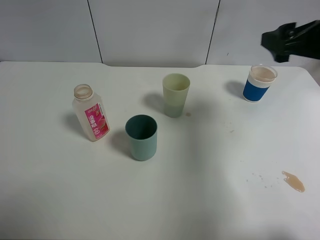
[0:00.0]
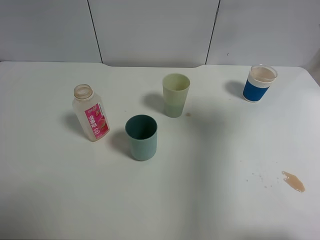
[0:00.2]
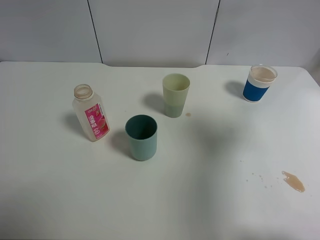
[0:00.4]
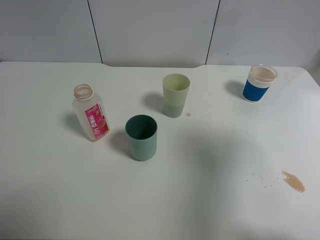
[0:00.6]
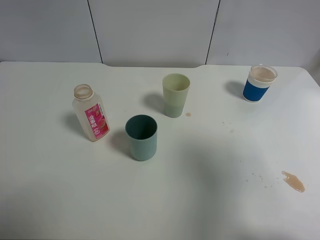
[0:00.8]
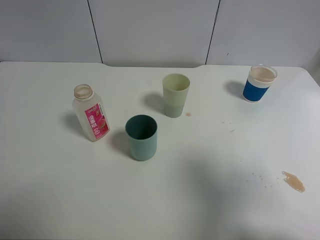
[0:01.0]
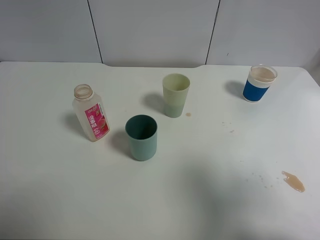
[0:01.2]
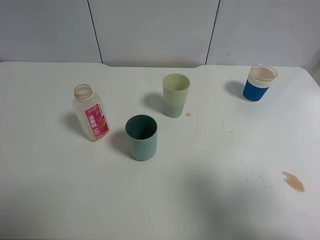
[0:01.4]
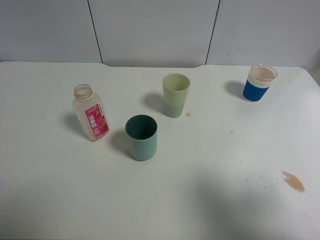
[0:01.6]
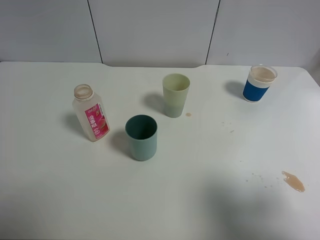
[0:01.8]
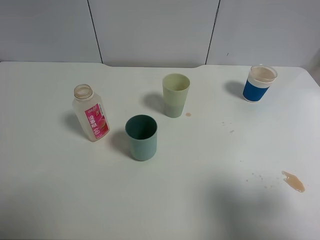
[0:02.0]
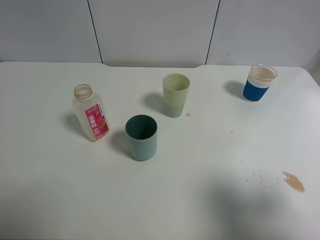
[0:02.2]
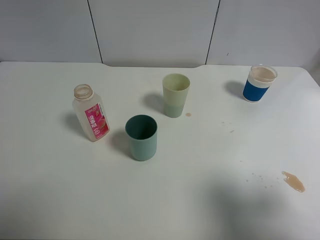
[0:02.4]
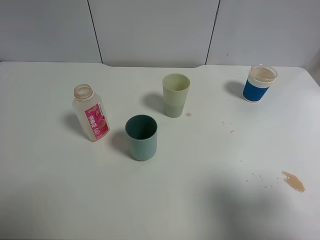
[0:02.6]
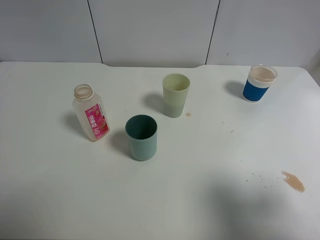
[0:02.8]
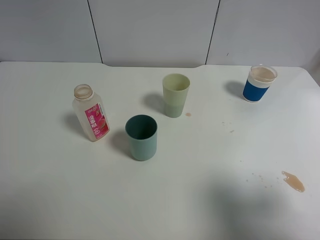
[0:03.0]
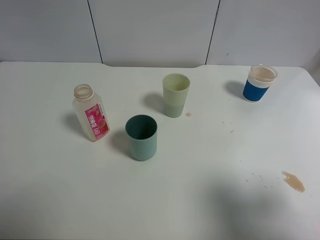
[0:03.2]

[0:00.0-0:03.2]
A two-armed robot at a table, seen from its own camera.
Task of the whole recording: use a clamp to hold the bottle of the drink, pour the beverage into a random cup, then clamp the cup containing the drink and pour the drink into another random cup.
0:00.0 to 0:01.6: The right gripper is displaced backward by approximately 25 cm.

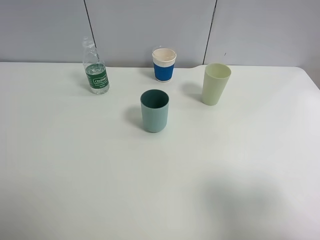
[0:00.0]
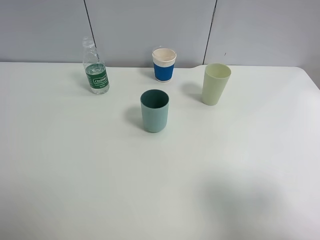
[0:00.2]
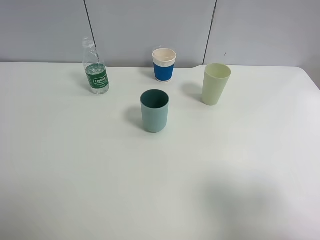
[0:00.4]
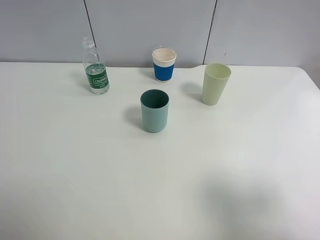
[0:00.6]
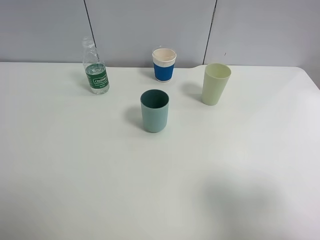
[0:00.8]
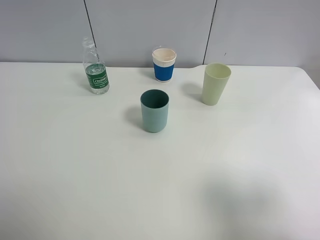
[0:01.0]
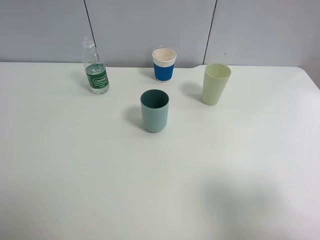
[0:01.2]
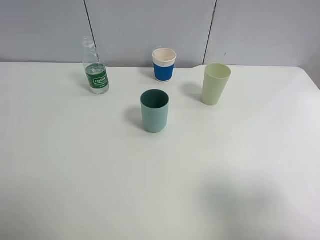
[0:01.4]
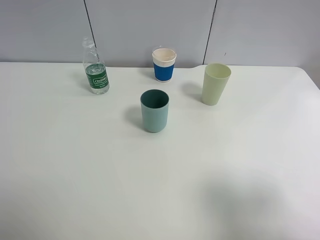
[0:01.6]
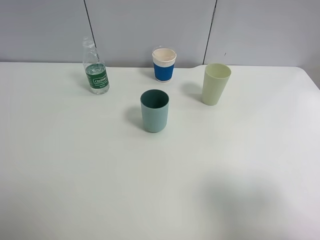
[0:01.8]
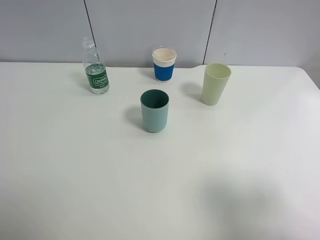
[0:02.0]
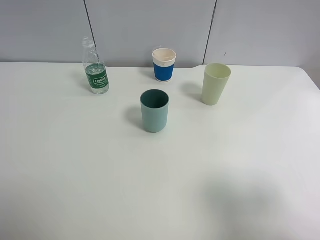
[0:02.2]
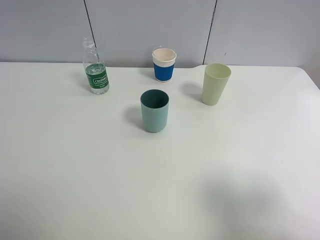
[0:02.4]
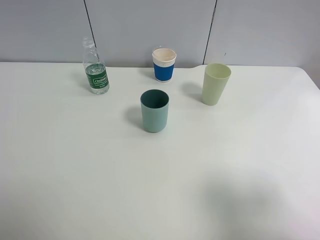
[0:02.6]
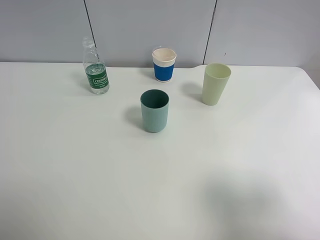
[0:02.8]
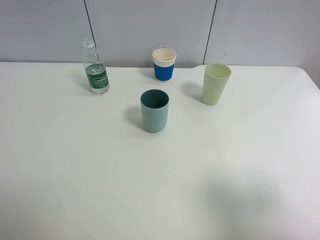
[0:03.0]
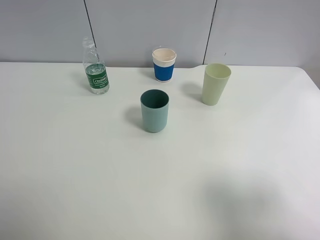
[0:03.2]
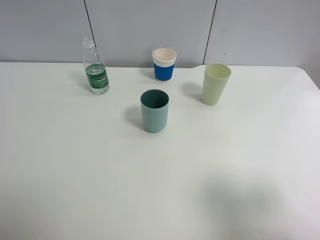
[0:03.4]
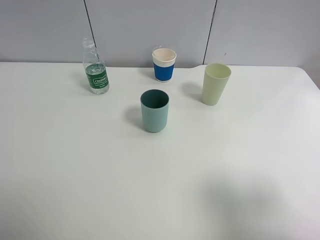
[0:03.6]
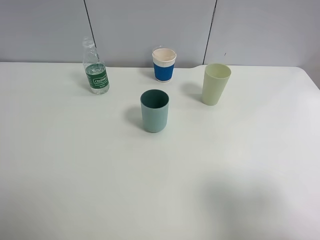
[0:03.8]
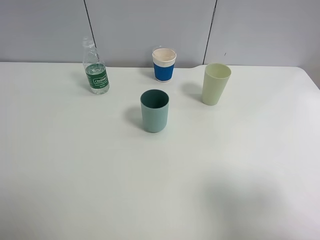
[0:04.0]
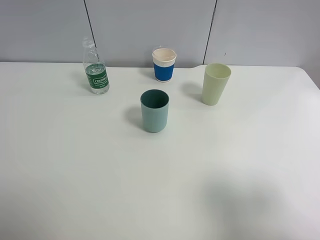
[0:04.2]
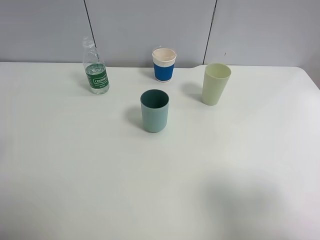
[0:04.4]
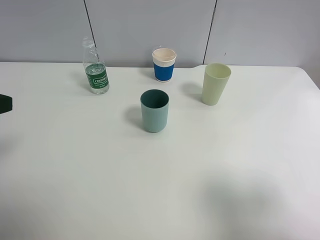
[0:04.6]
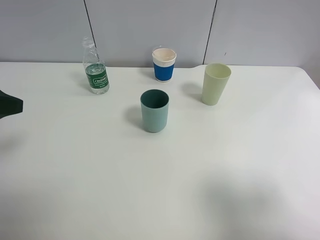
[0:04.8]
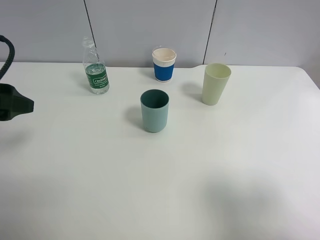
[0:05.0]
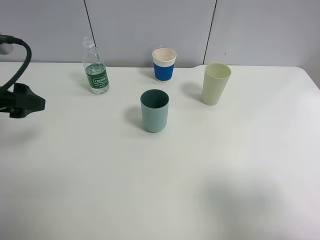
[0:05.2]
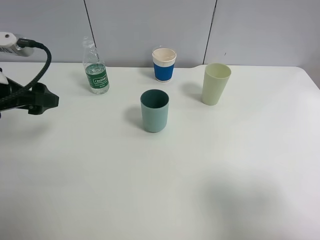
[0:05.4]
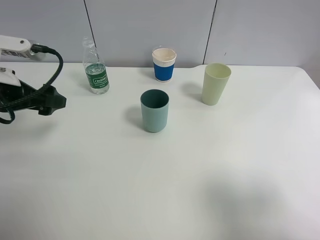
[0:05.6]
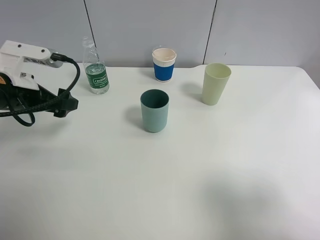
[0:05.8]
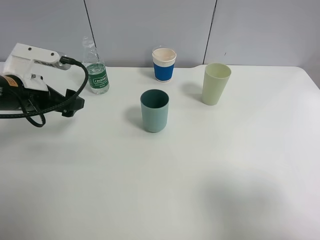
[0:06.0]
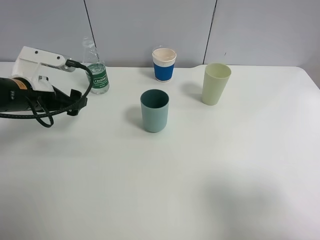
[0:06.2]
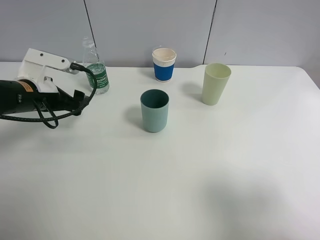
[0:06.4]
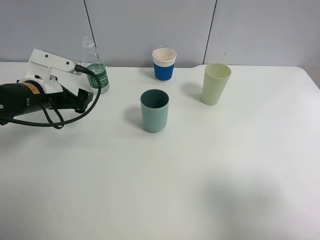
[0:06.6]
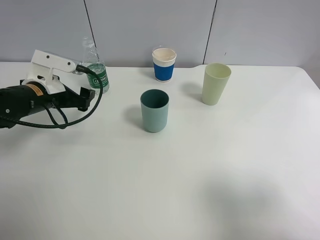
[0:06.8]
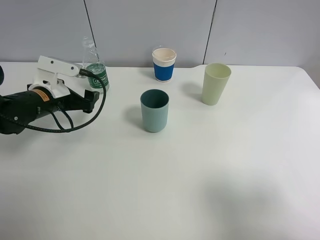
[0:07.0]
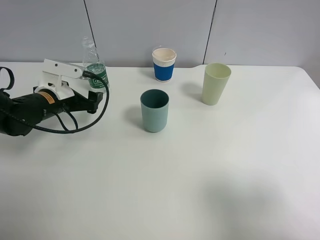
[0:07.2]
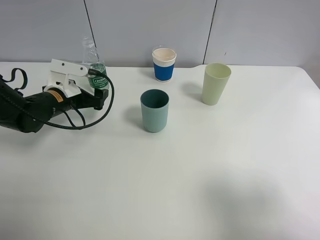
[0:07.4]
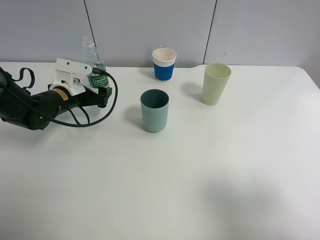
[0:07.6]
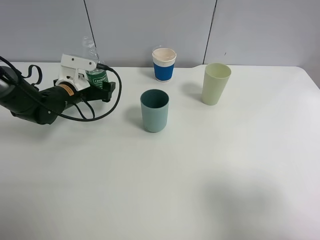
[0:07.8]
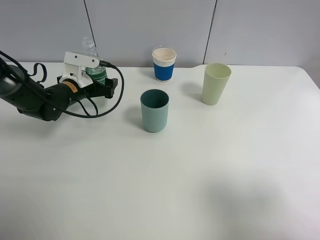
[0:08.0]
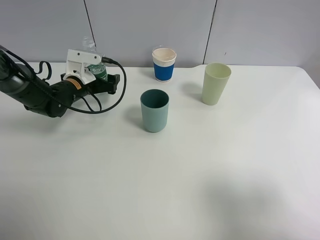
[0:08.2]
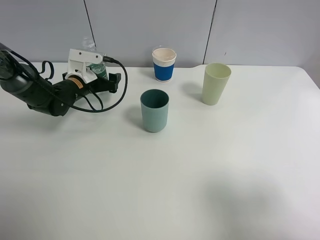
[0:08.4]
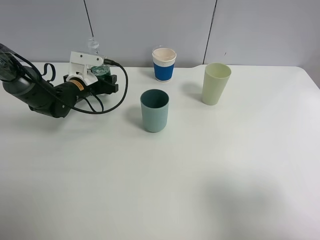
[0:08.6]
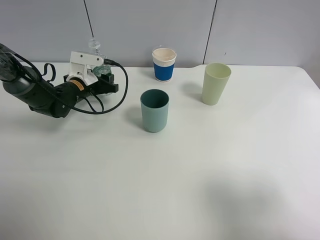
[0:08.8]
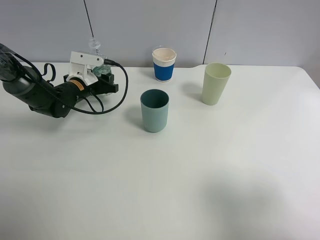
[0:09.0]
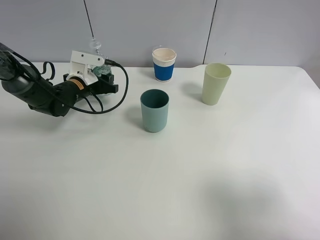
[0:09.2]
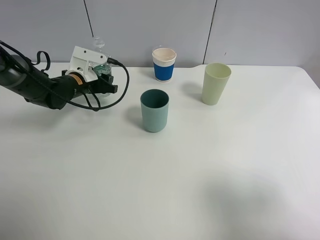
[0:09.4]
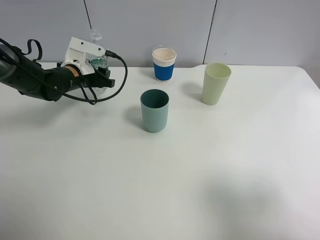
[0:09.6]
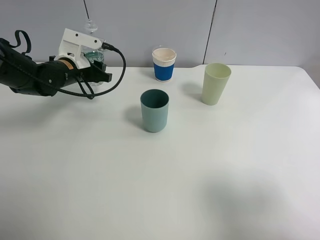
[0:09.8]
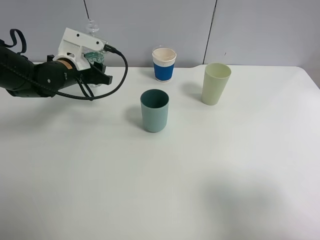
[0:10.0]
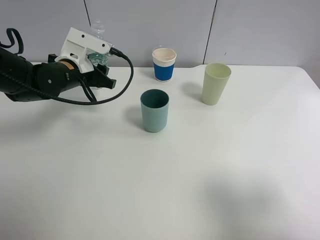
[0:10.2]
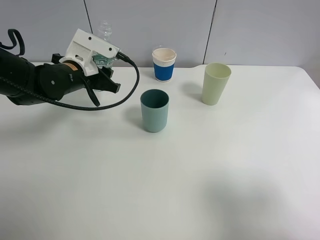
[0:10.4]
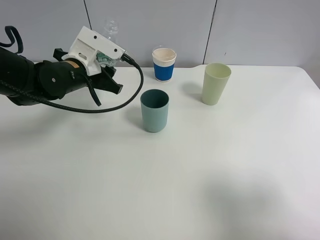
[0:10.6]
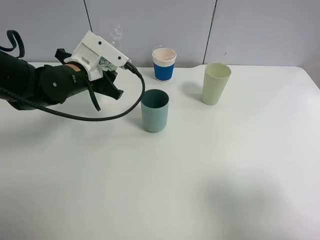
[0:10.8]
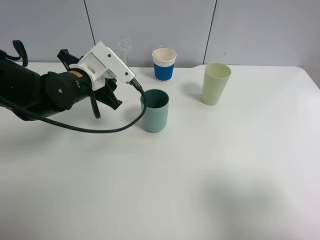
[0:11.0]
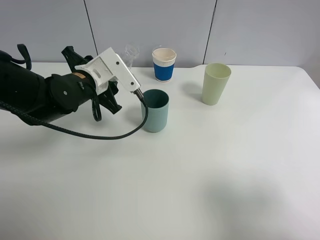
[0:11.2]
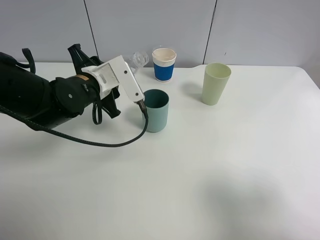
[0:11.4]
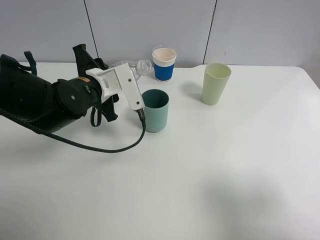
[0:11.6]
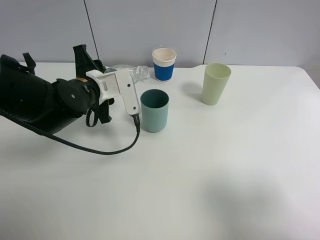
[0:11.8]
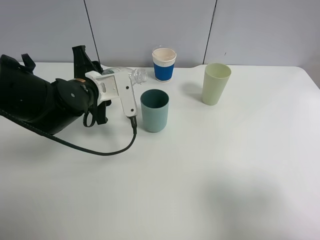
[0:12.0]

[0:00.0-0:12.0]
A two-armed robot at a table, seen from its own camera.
Task of the whole recording: use a clamp to hold the bottle of the drink, pour the beverage into a random cup, then clamp the cup containing the drink and pour the drink into another random cup.
Step, 0:00.0 to 0:09.8: Pick up the water bottle with left gripper.
0:00.0 to 0:03.0: Both grippers stay put.
0:04.4 to 0:06.0: The left gripper moves forward and downward, roughly 20 cm.
0:06.0 to 0:07.6: The left gripper shifts about 10 cm downward and forward.
0:07.6 to 0:09.0: The left gripper shifts some 5 cm forward, and closes.
0:09.0 to 0:10.4: The left gripper goes roughly 10 cm upward and backward.
0:10.4 to 0:12.0: The left gripper travels backward by some 5 cm.

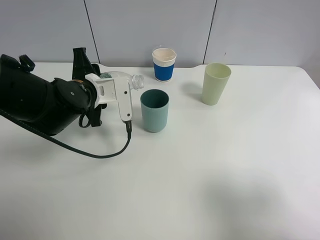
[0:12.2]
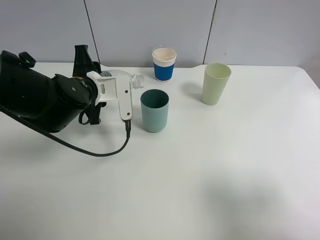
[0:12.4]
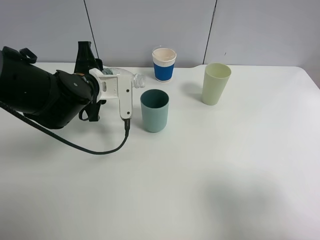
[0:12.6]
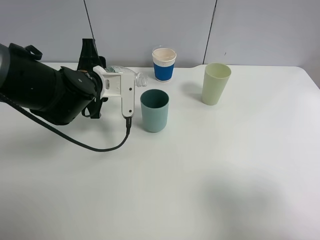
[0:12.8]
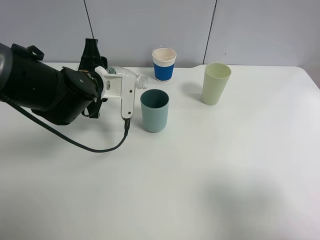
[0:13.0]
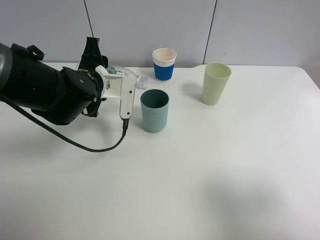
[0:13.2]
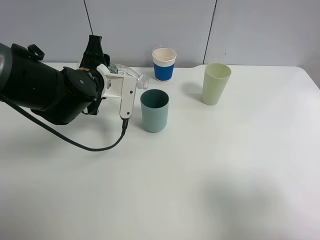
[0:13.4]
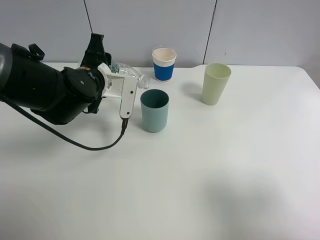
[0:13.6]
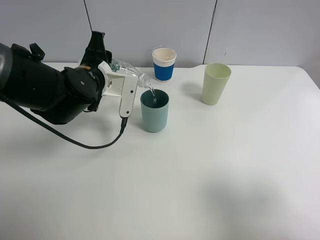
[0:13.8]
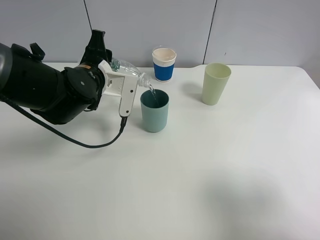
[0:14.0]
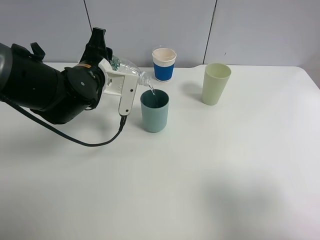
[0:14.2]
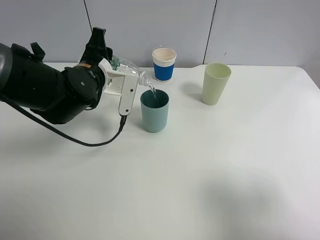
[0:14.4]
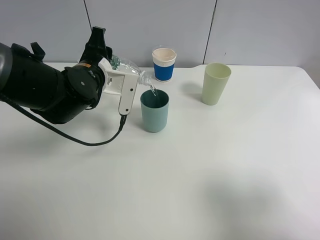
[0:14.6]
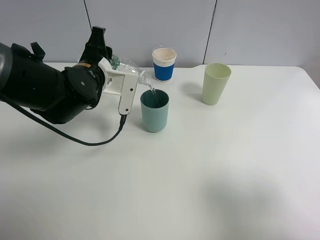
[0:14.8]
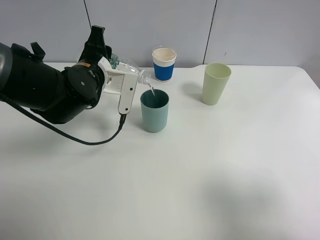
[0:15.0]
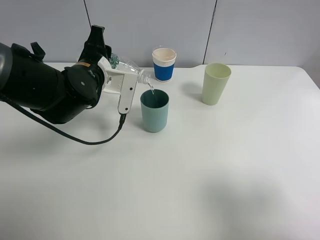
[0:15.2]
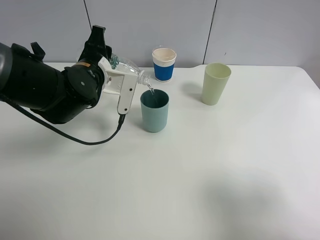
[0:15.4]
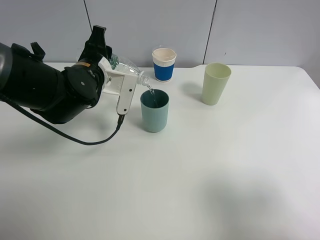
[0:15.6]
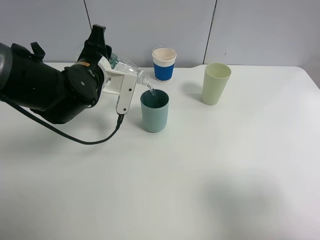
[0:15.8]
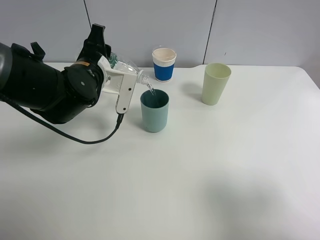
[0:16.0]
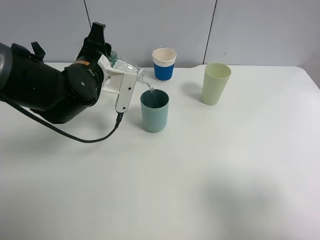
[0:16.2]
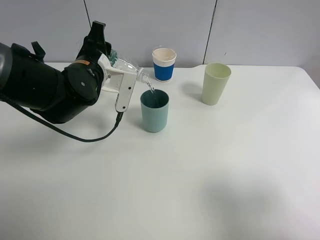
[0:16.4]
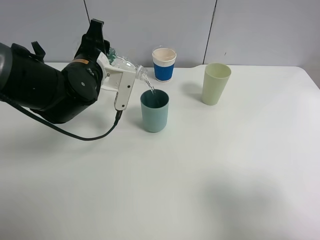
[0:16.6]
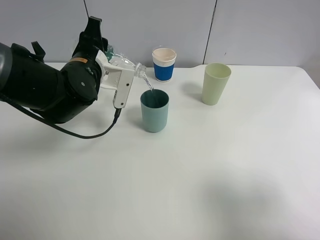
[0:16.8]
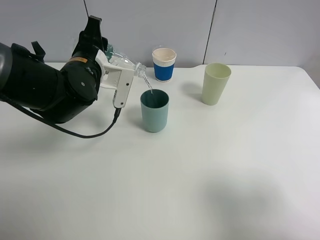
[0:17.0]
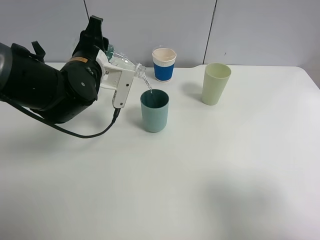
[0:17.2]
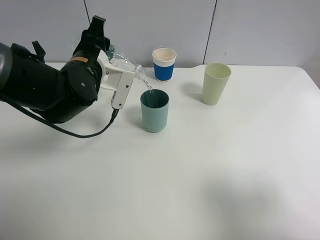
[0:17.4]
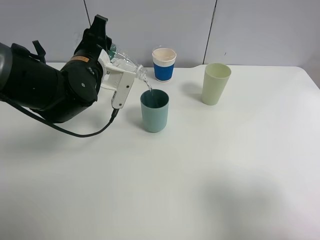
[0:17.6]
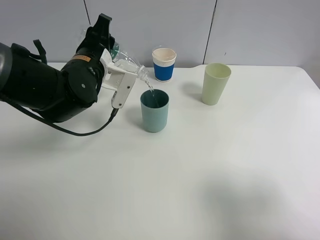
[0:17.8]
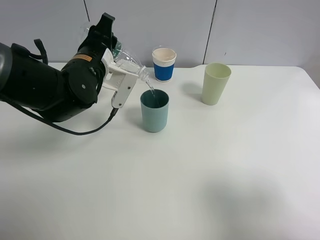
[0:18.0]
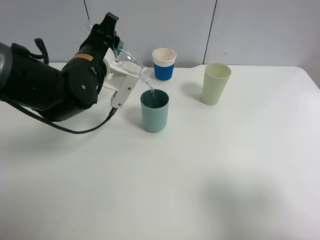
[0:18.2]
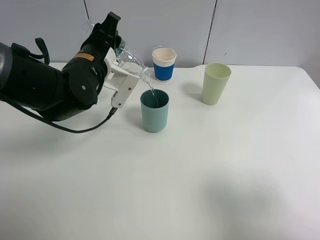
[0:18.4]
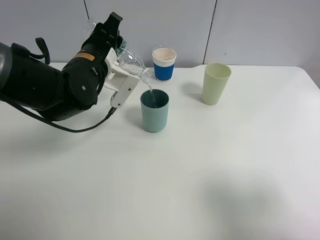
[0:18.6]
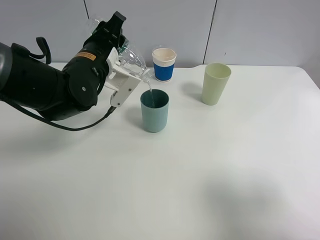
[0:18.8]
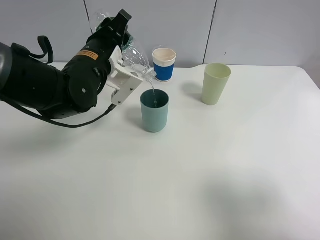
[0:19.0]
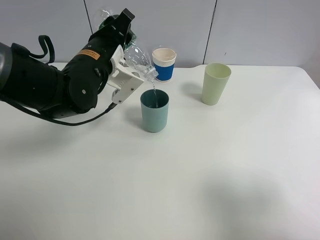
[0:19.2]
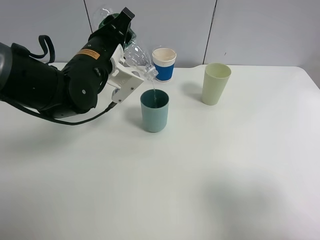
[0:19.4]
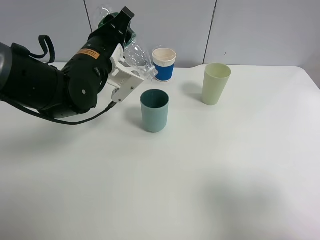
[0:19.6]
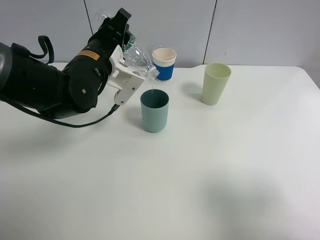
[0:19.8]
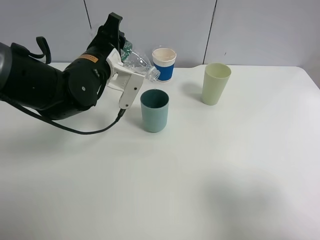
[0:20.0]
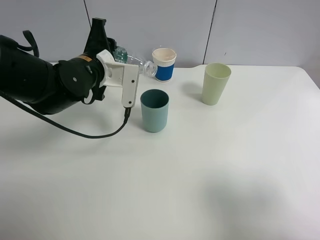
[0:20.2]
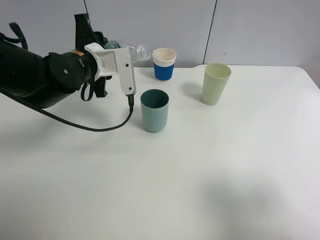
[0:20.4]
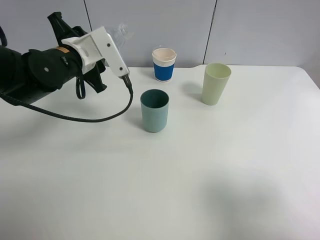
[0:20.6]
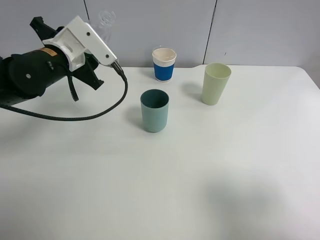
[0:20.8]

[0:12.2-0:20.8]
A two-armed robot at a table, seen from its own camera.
Task of the whole recording: use a clamp to hold the bottle of the drink, pour the beverage into a random cup, then clamp the cup containing the drink and pour the drink into another random cup.
Step, 0:12.2 to 0:20.0: Pour the water into the blue plastic cup with left gripper.
0:12.2 to 0:13.6: There are only small adjustments of the grippers.
0:13.6 to 0:16.6: The grippers move only a little.
0:16.6 to 0:18.0: The grippers make only small movements.
0:18.0 to 0:19.4: The grippers stay close to where they were, moving slightly.
0:19.4 to 0:20.8: The left gripper shifts some 10 cm to the left.
